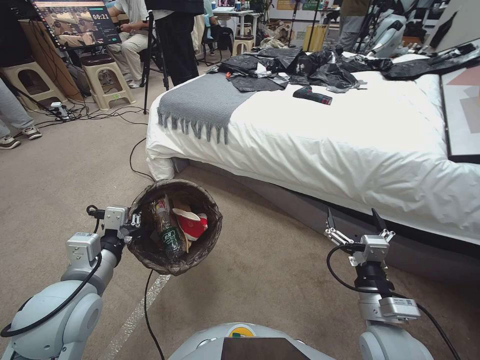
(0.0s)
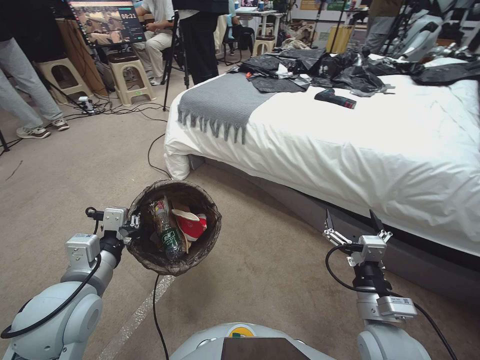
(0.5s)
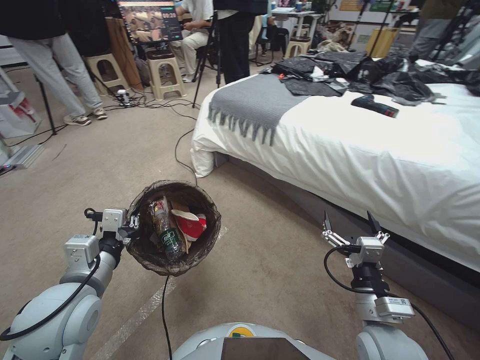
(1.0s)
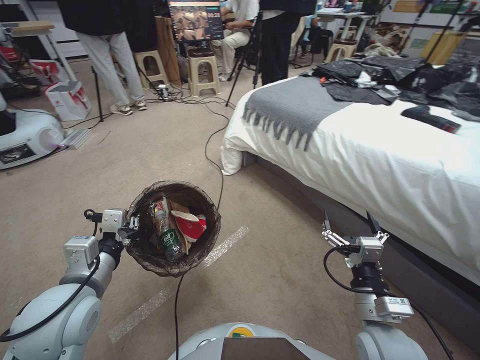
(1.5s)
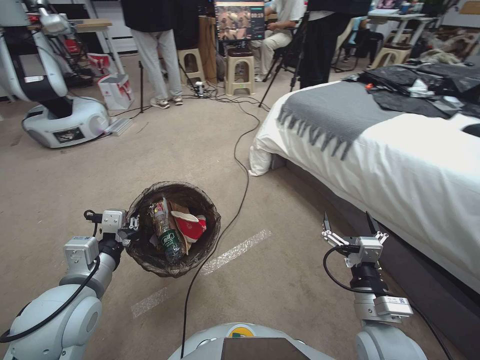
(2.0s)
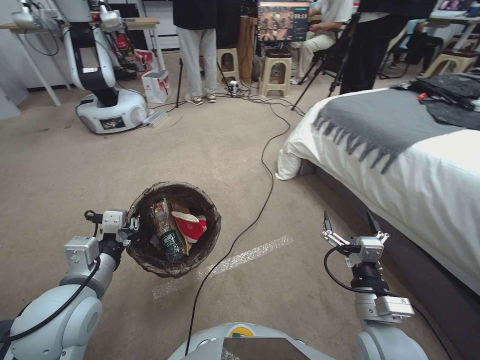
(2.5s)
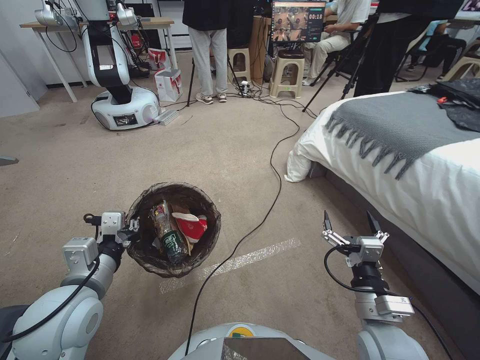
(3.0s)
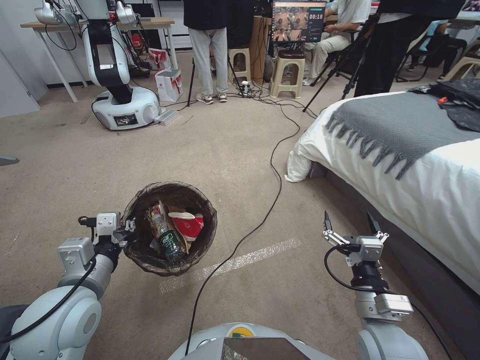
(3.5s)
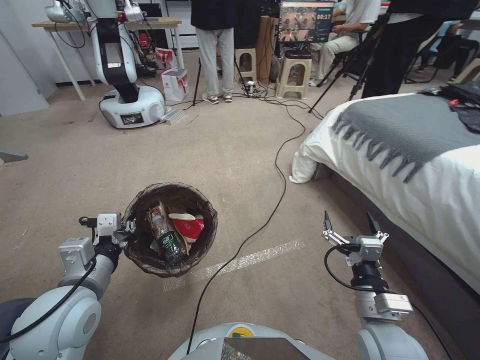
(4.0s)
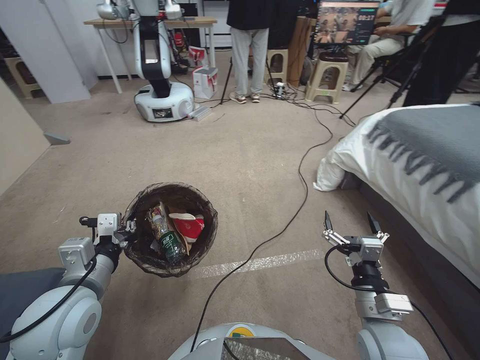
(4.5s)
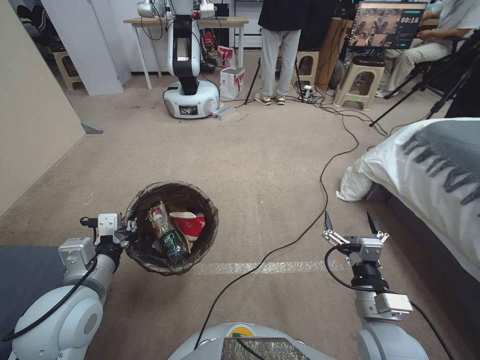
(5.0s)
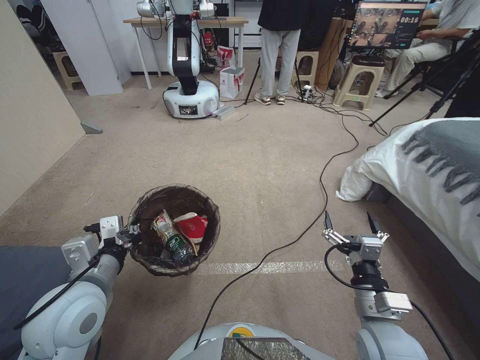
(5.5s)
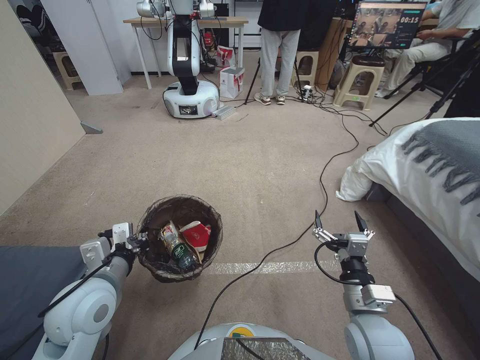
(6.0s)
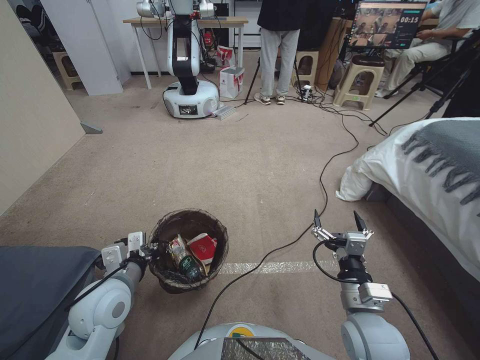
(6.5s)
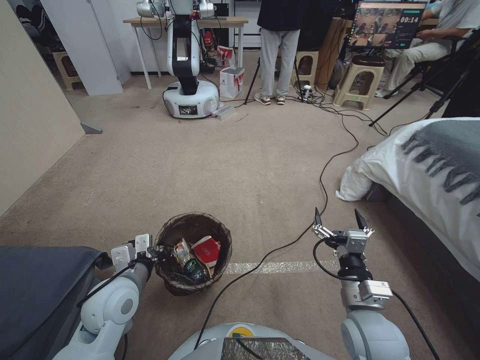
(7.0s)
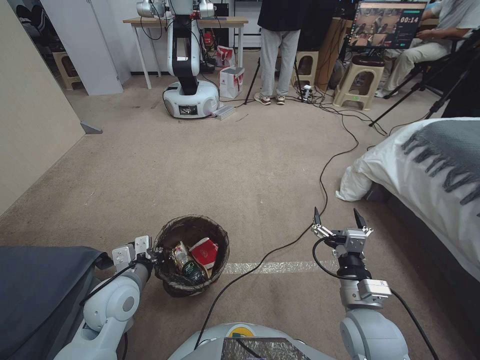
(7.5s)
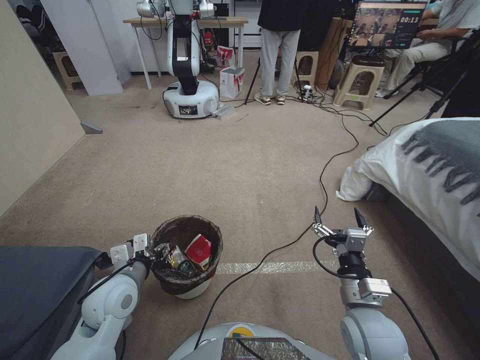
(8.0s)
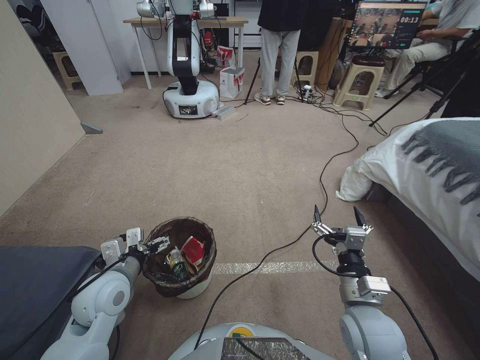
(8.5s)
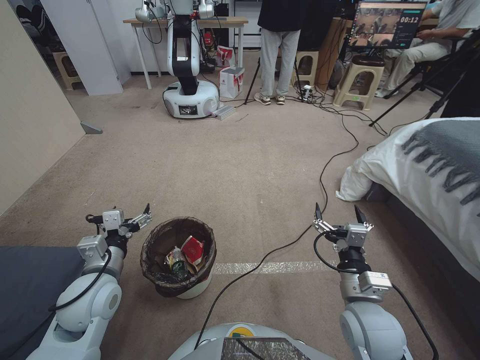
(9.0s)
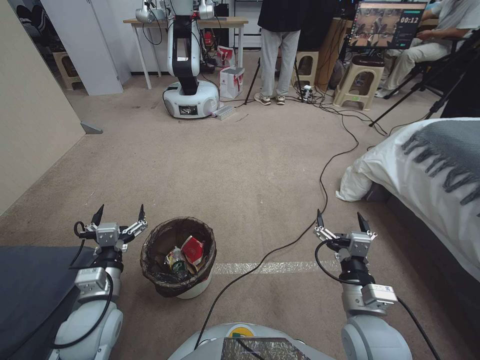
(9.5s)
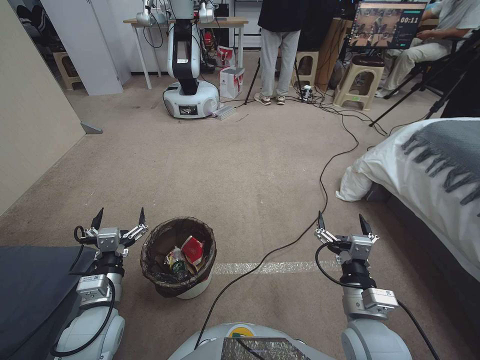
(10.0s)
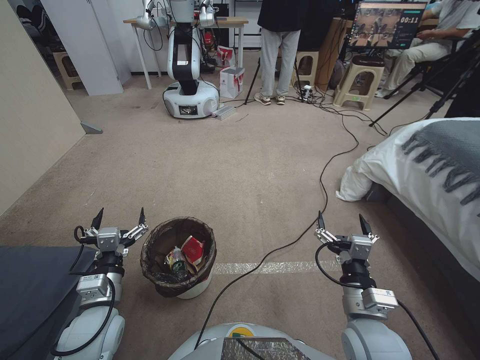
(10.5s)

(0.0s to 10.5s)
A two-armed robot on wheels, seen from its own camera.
Task of the whole recording: Pick up the trash bin, then pick up the garbage from the floor and place it into the trash bin.
4.0s - 6.5s: The left gripper is displaced downward by about 5 cm.
6.5s - 8.5s: The left gripper opens.
8.5s - 10.5s: The left gripper goes approximately 5 cm backward.

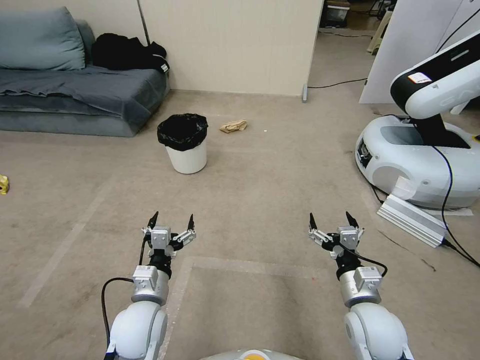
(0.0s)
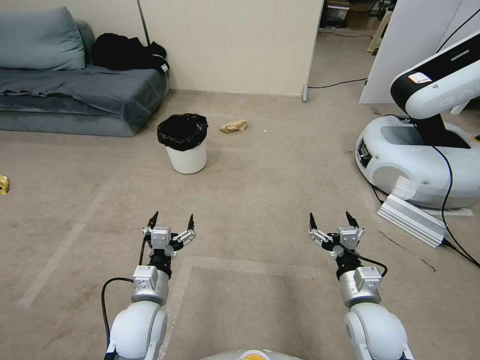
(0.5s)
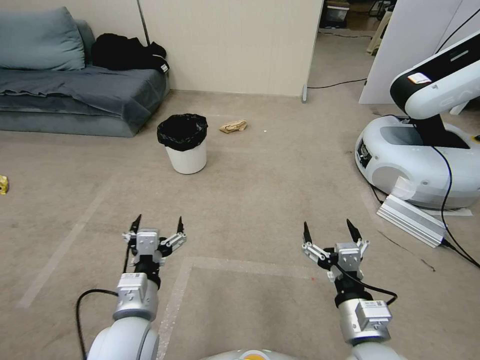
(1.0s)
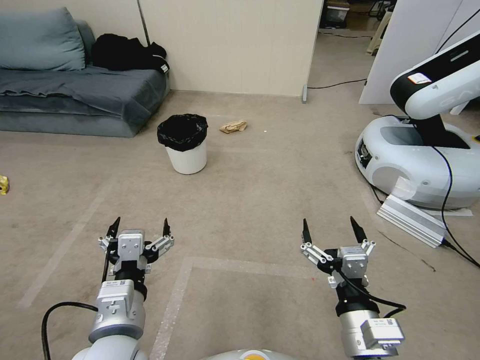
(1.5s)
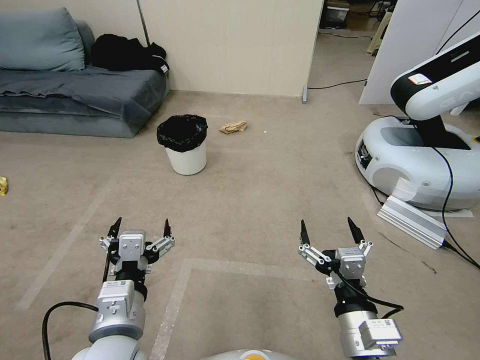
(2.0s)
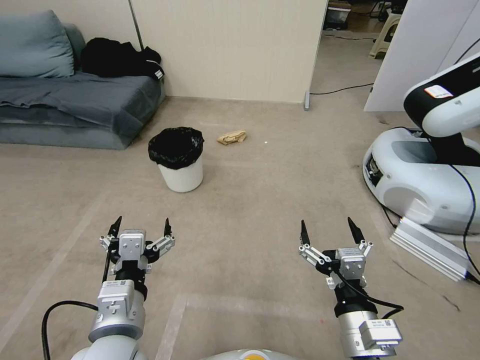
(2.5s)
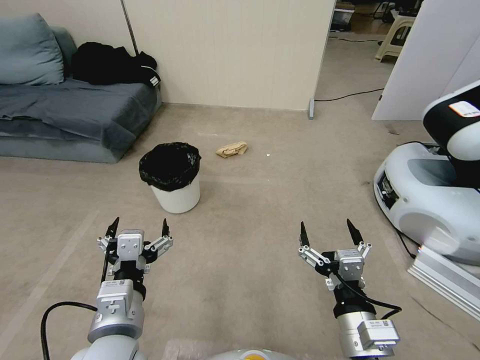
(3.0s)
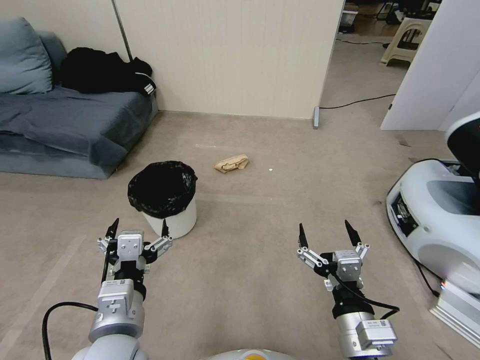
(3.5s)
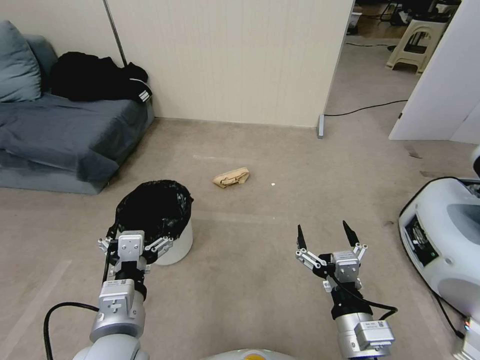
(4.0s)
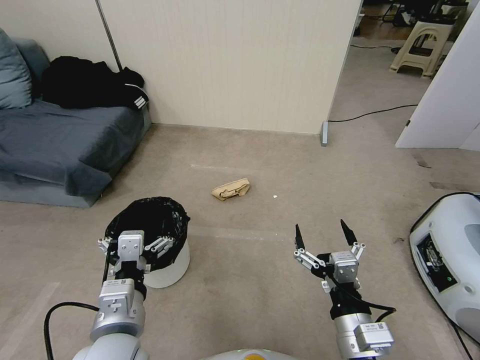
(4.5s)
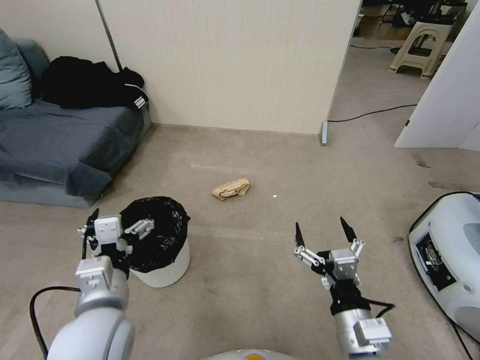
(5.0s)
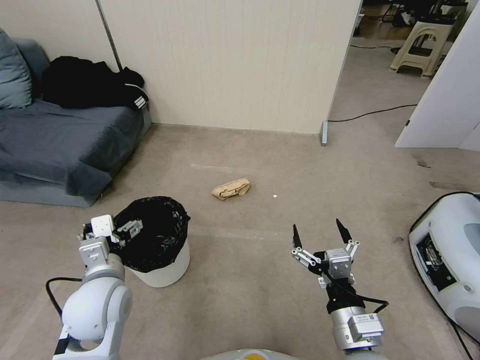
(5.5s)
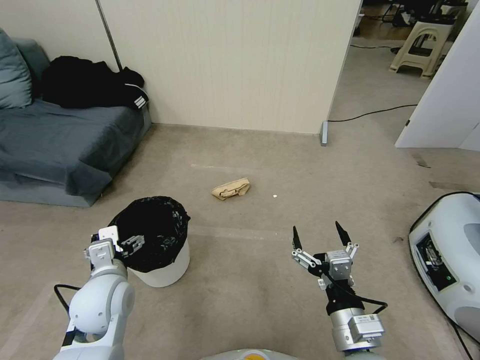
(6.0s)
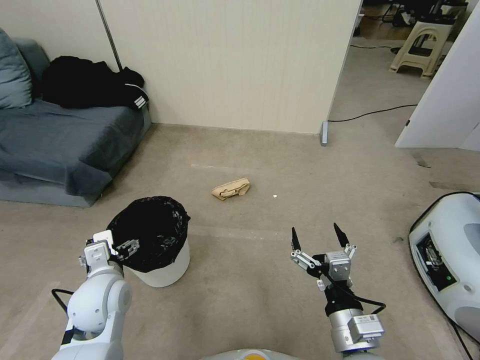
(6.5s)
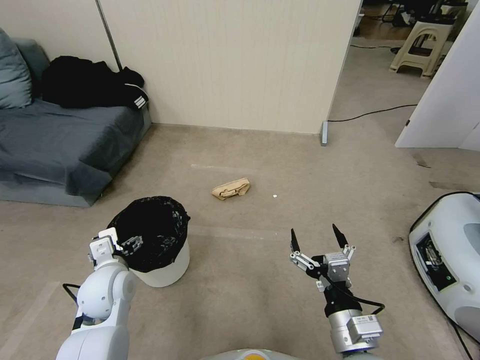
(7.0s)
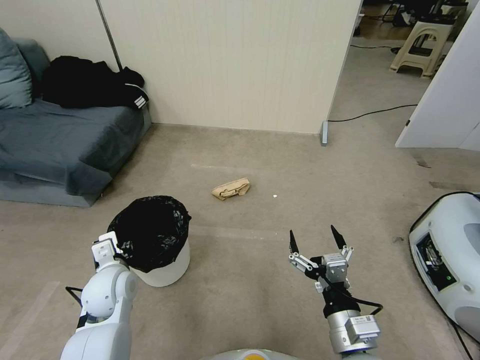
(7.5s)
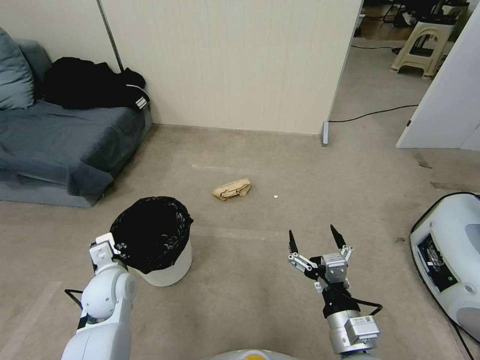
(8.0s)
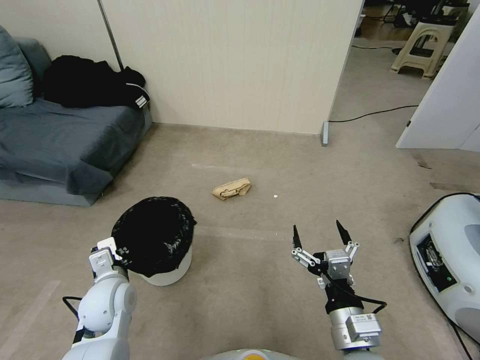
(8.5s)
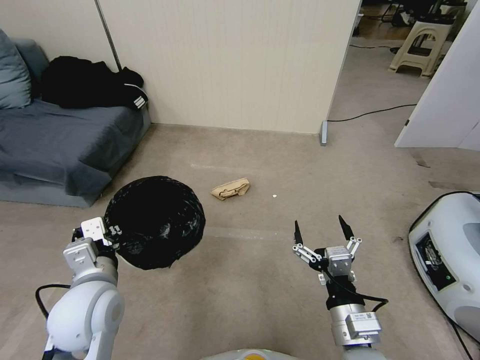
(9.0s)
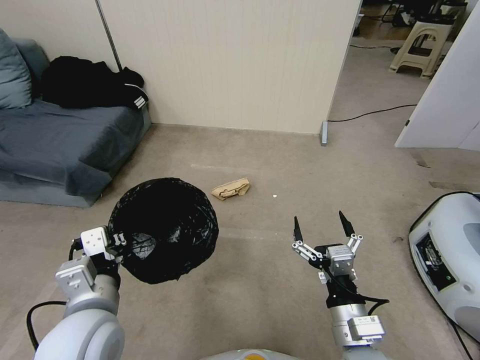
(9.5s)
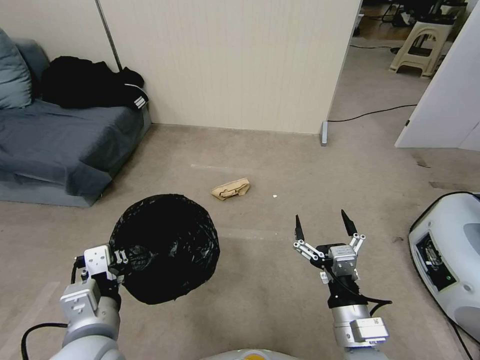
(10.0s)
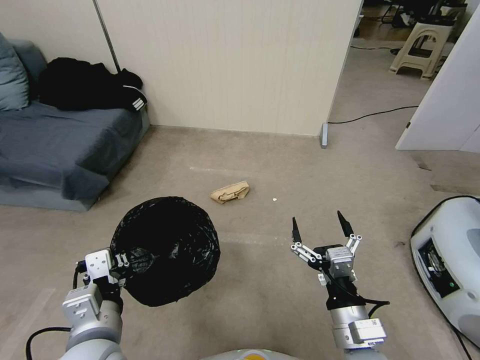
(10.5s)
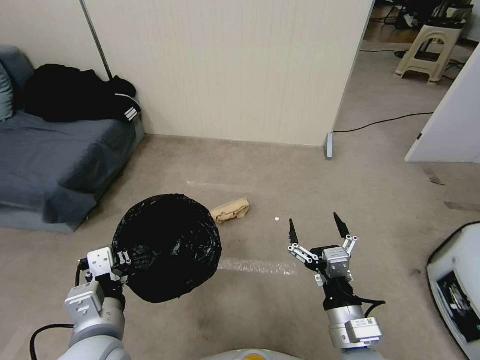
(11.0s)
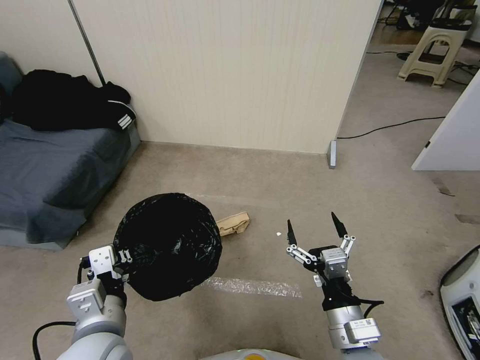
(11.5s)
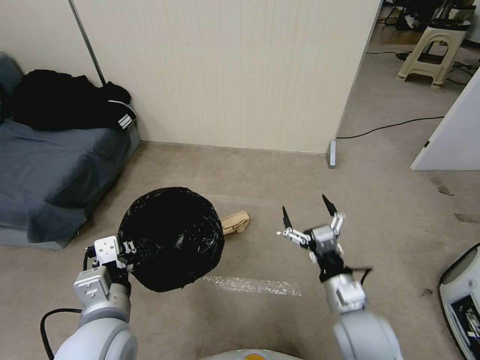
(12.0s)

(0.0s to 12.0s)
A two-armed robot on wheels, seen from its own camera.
Task of the whole recording: Pick up the trash bin, then pick up the garbage from the floor and place it into the trash bin.
4.0s - 6.0s: The left gripper goes about 15 cm forward, to the left and downward.
6.0s - 8.0s: The left gripper heads downward, covering approximately 5 cm, and closes up.
8.0s - 10.0s: The left gripper is displaced backward, upward and to the right by roughly 20 cm.
10.0s - 12.0s: The right gripper heads forward, covering approximately 5 cm.

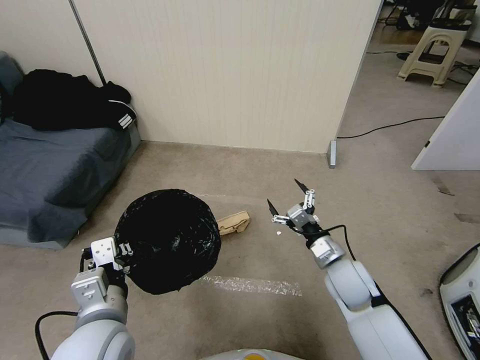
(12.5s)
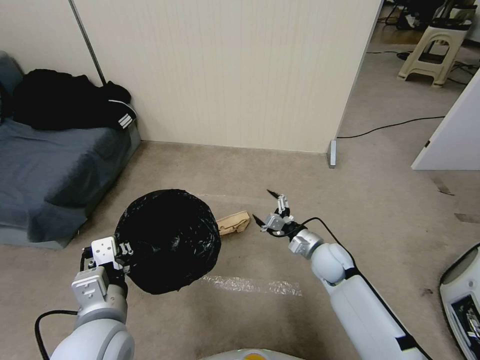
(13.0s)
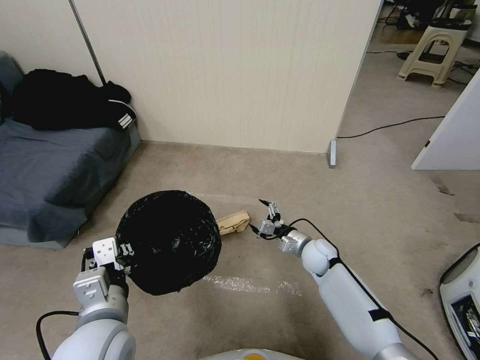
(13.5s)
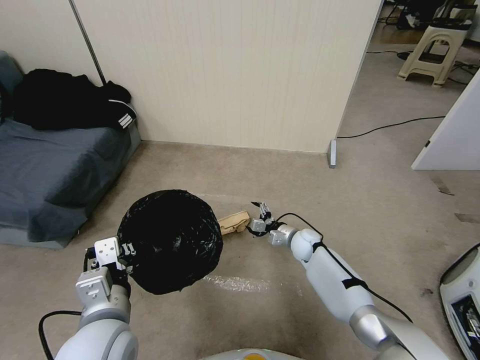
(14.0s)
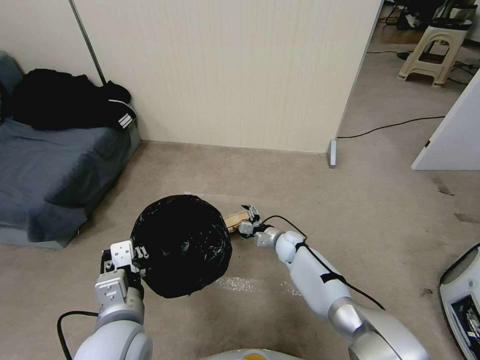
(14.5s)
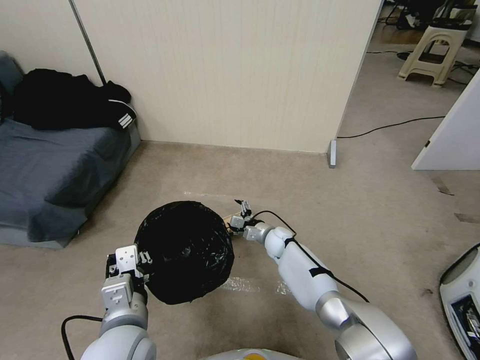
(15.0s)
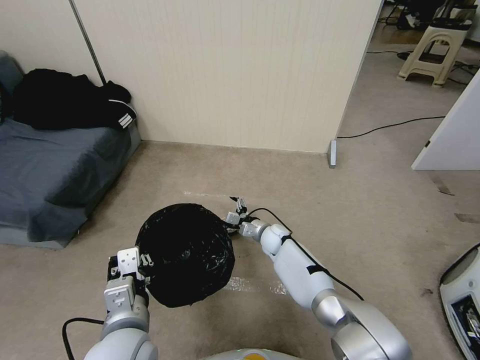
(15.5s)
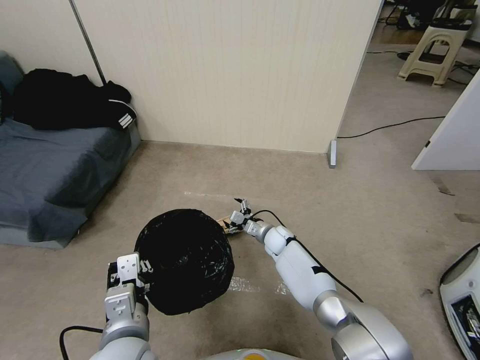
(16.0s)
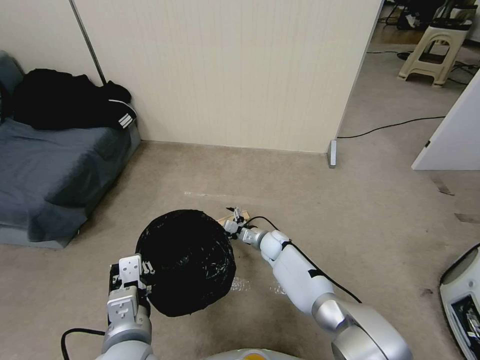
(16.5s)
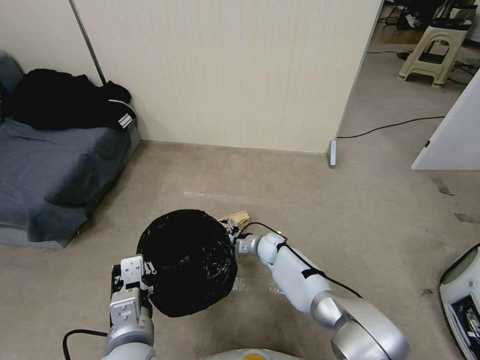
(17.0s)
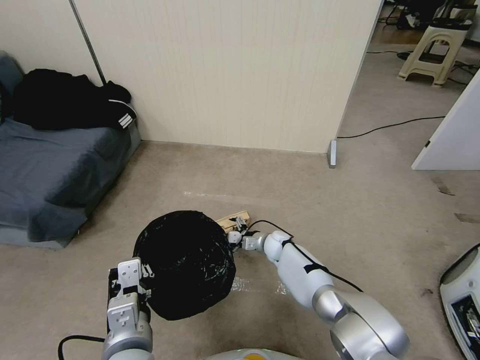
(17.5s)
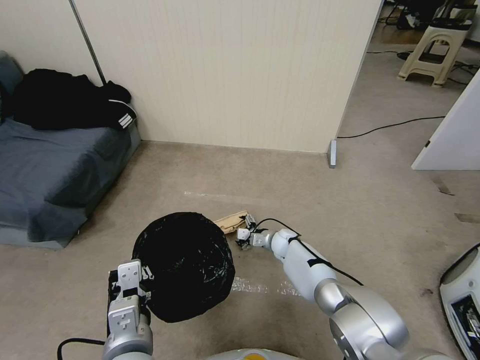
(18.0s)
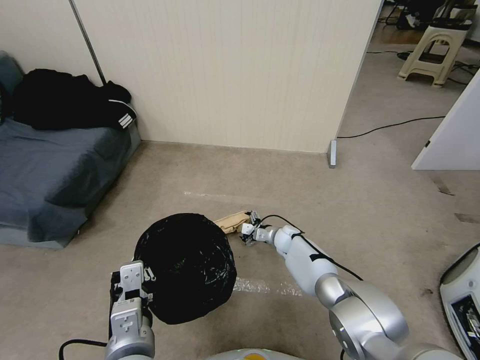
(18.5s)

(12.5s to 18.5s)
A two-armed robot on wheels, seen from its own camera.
Task of the whole recording: Pick up the trash bin, then pick up the garbage from the floor and place it into the trash bin.
12.5s - 14.5s: The right gripper moves forward, downward and to the left, approximately 25 cm.
14.5s - 16.5s: The right gripper is displaced to the left by about 5 cm.
16.5s - 18.5s: The right gripper heads to the right, covering approximately 5 cm.
